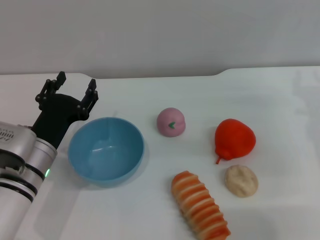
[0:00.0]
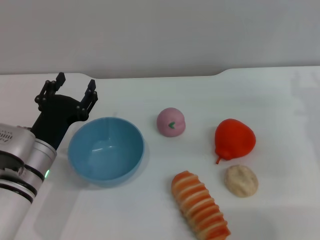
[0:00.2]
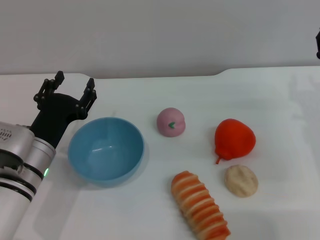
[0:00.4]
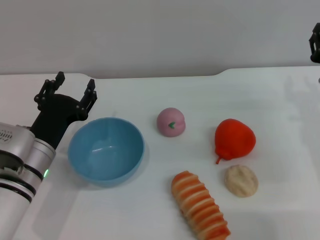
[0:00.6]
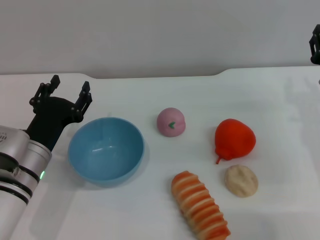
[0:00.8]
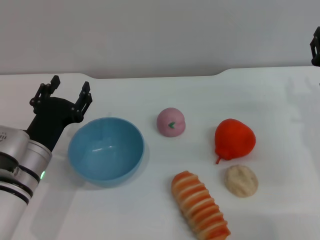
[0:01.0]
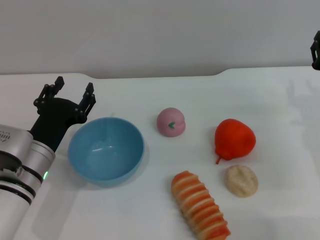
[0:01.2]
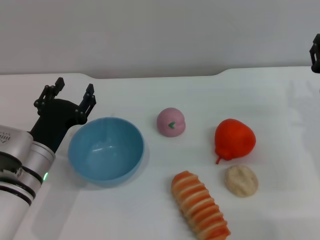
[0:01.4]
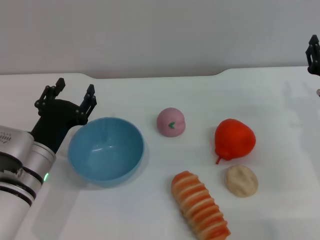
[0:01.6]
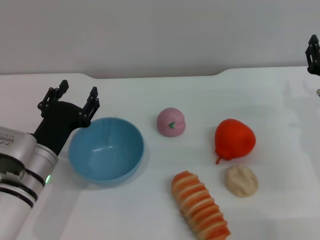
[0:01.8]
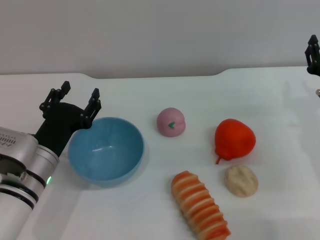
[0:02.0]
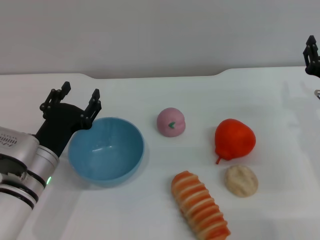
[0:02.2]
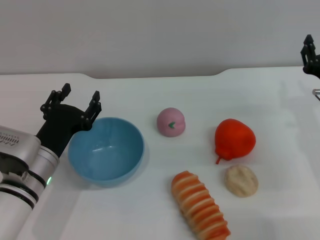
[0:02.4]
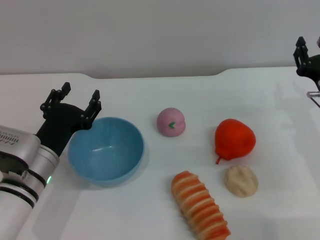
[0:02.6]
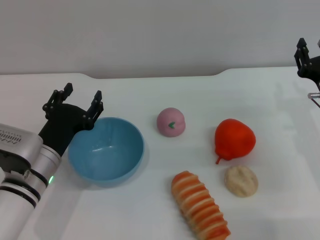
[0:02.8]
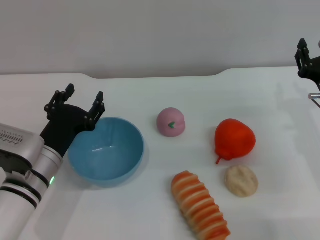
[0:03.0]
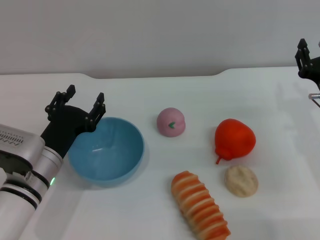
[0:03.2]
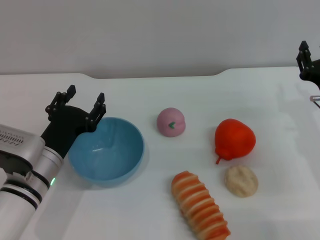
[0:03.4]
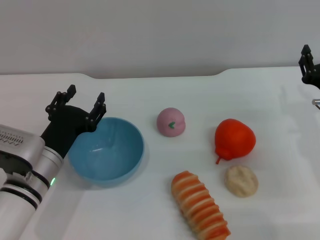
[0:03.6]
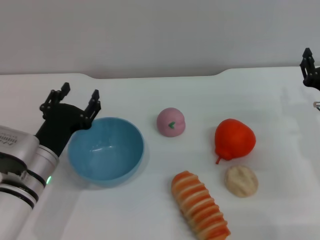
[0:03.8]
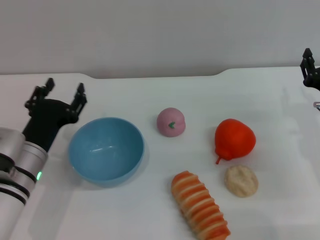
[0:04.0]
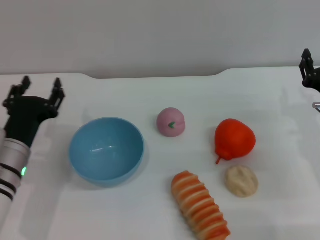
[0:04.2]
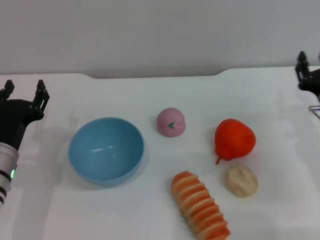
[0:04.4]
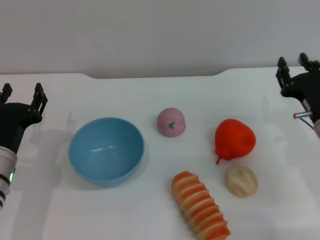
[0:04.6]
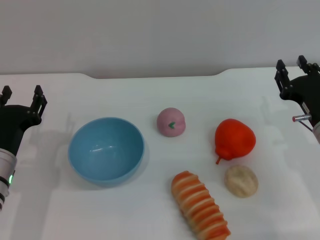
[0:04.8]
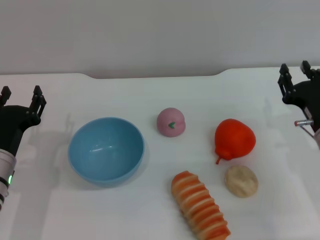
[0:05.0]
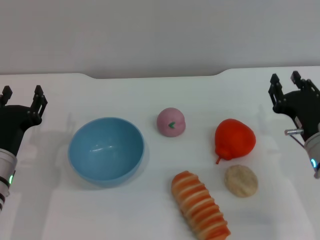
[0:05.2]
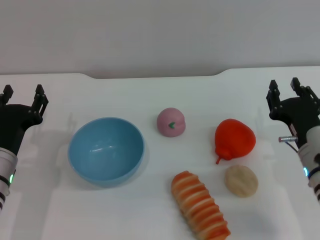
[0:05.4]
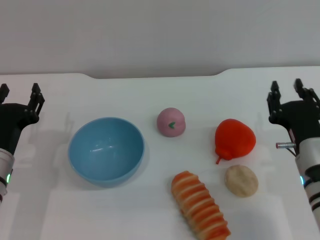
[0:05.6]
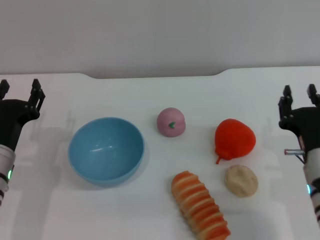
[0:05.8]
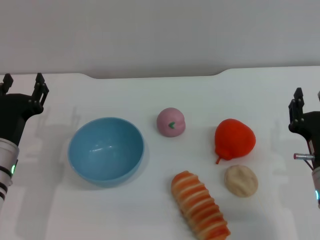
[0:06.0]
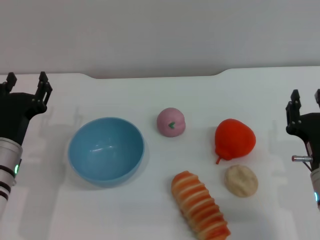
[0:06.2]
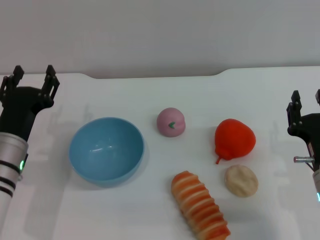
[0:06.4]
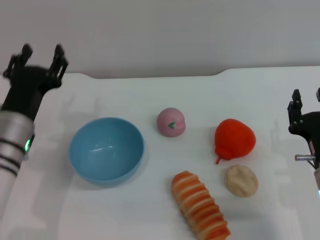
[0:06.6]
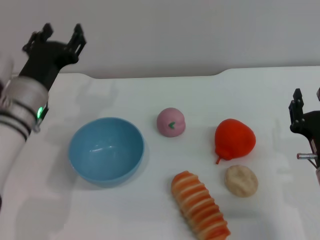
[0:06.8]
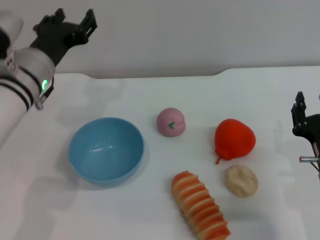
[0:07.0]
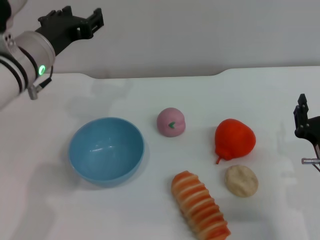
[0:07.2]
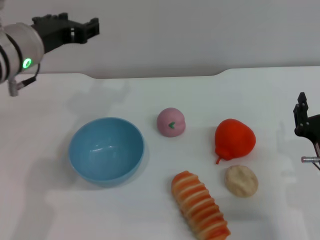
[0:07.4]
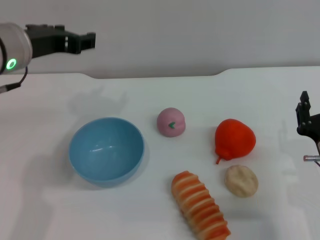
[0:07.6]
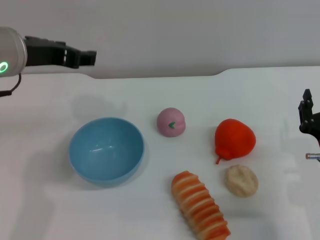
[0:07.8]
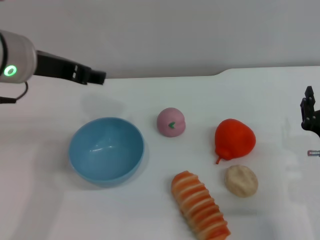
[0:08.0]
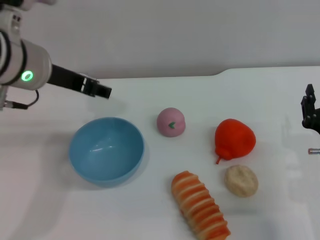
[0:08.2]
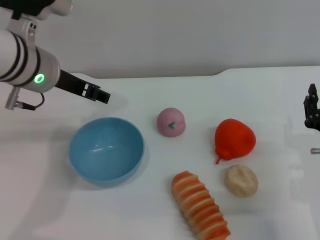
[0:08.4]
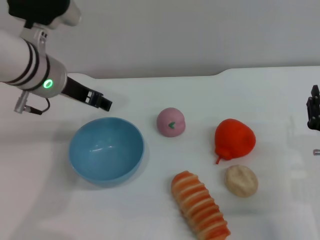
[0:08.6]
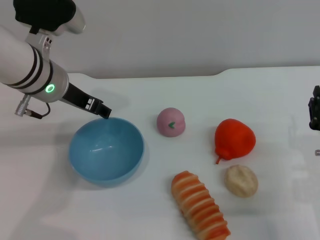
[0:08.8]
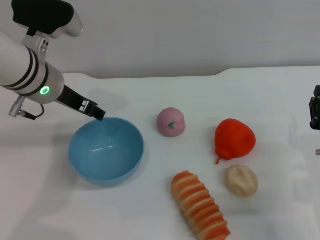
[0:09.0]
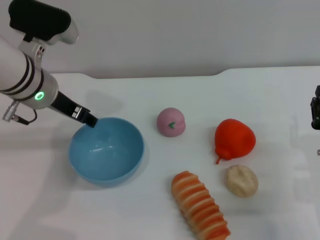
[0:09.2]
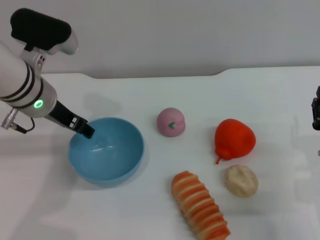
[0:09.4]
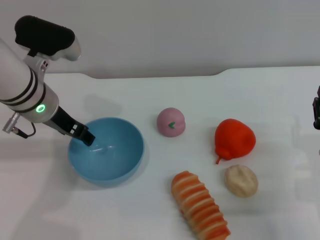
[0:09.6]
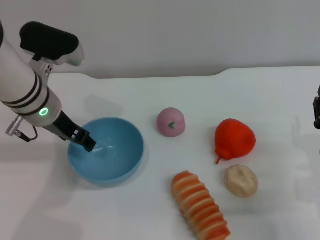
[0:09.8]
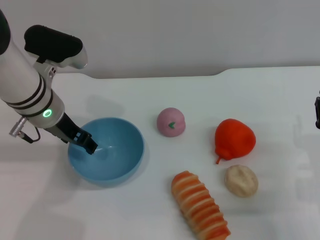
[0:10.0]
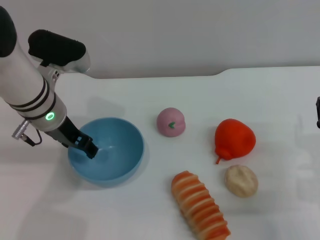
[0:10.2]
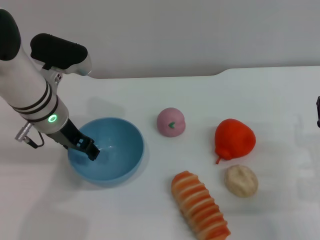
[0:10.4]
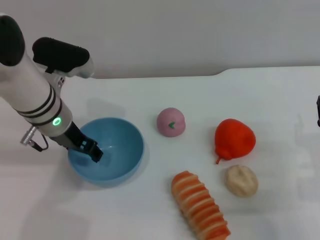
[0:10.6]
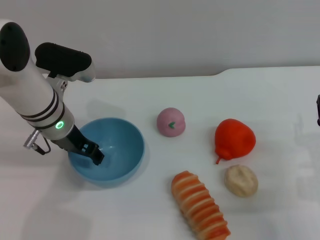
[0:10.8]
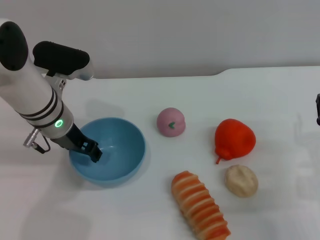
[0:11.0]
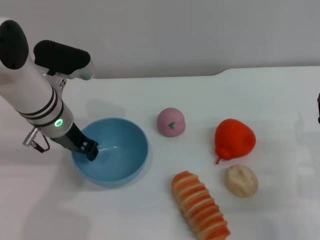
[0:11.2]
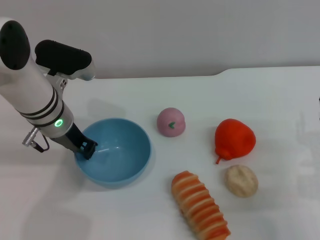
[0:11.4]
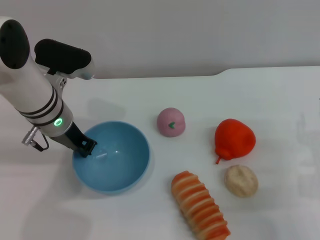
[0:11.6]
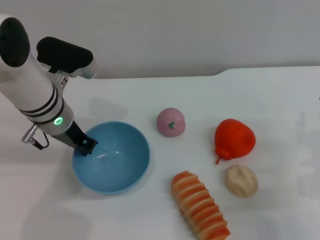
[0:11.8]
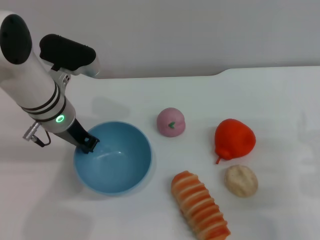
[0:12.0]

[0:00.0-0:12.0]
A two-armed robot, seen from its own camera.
Task of the whole recording: put the egg yolk pastry into the blue bowl and pour it out repeatedly.
0:00.0 to 0:01.6: The grippers stay close to where they were, moving slightly.
0:01.6 to 0:03.0: Both grippers stay about where they are.
0:03.0 to 0:04.4: The left gripper moves some 5 cm.
0:04.4 to 0:06.0: The right gripper moves backward and to the left, some 10 cm.
0:06.0 to 0:07.6: The left gripper heads upward, covering some 20 cm.
0:07.6 to 0:09.0: The left gripper moves roughly 5 cm.
0:09.0 to 0:10.4: The grippers move only a little.
0:10.4 to 0:12.0: The left gripper closes.

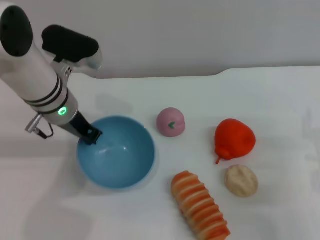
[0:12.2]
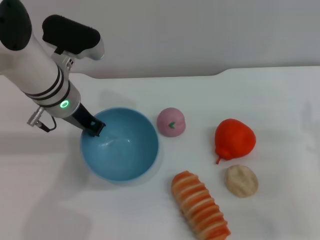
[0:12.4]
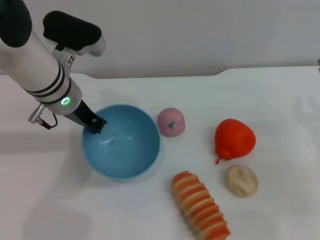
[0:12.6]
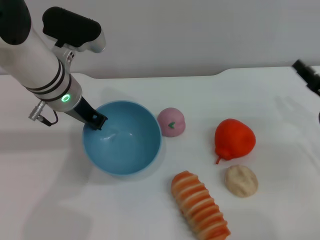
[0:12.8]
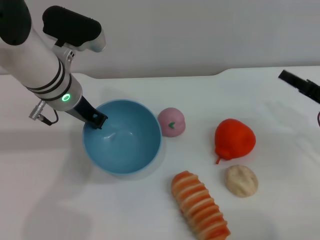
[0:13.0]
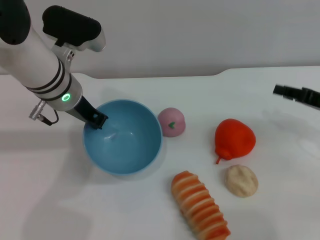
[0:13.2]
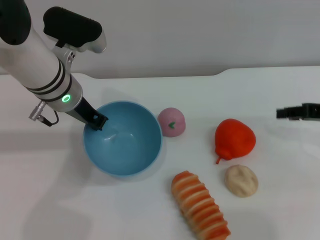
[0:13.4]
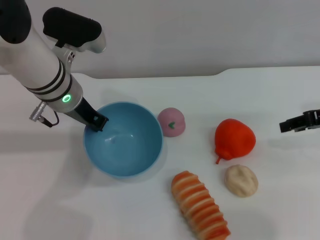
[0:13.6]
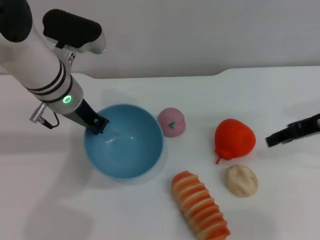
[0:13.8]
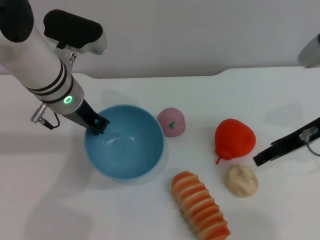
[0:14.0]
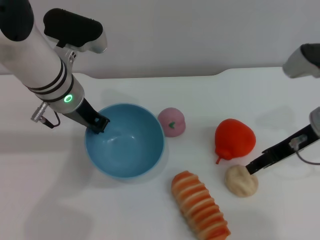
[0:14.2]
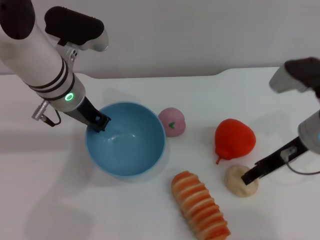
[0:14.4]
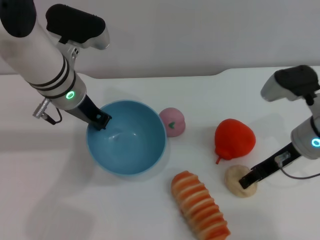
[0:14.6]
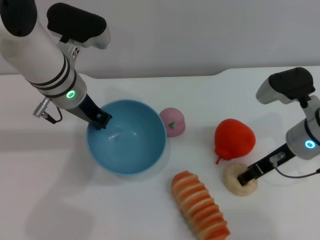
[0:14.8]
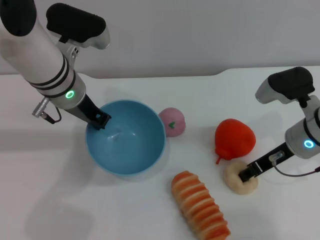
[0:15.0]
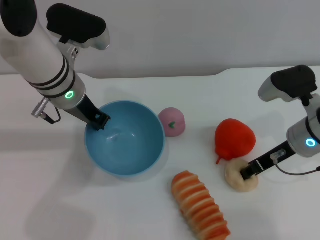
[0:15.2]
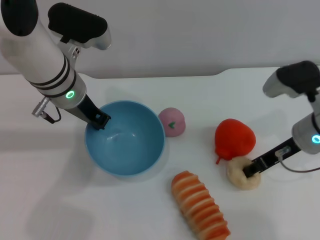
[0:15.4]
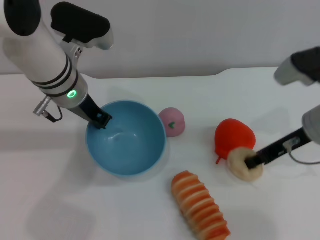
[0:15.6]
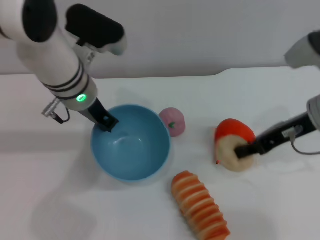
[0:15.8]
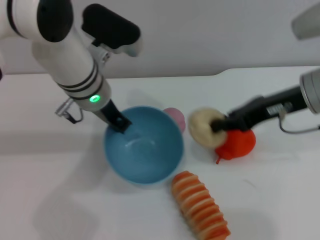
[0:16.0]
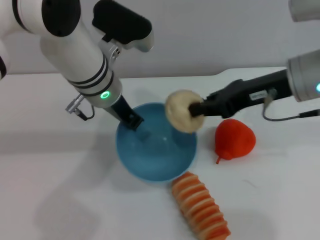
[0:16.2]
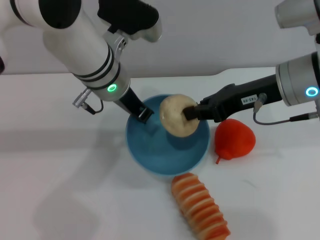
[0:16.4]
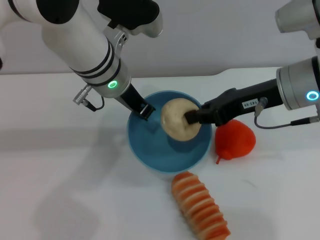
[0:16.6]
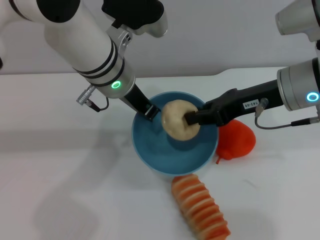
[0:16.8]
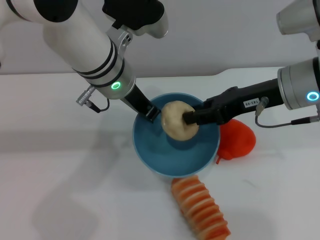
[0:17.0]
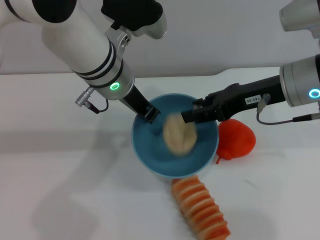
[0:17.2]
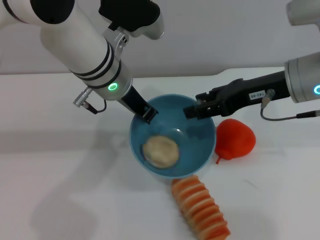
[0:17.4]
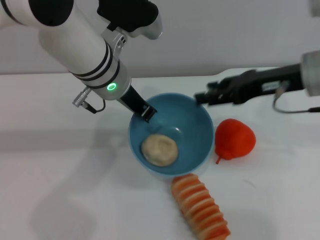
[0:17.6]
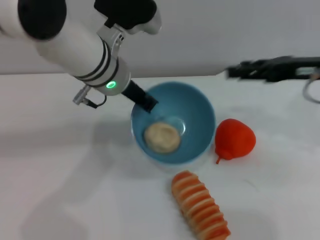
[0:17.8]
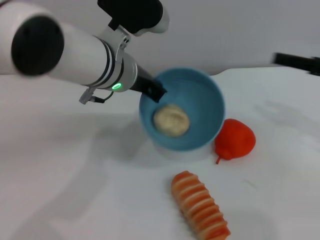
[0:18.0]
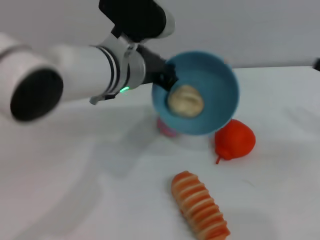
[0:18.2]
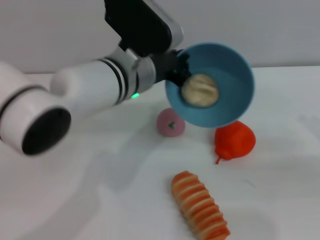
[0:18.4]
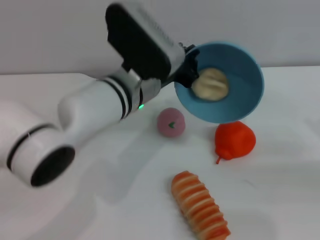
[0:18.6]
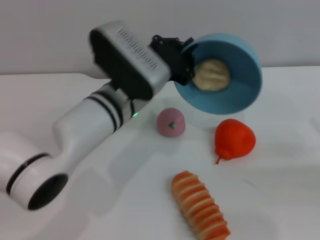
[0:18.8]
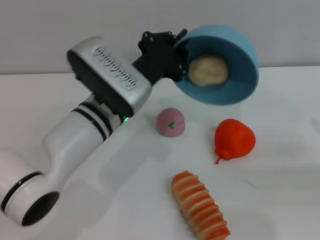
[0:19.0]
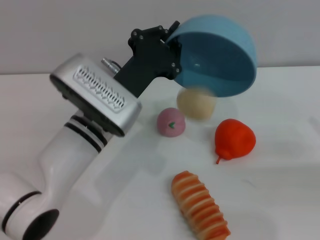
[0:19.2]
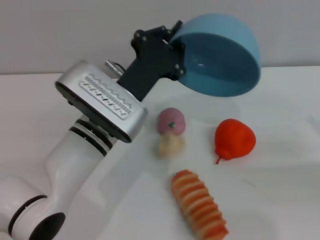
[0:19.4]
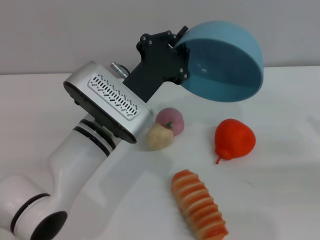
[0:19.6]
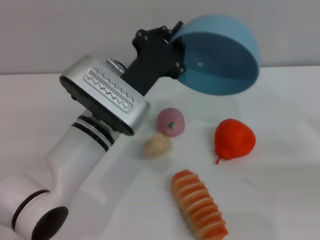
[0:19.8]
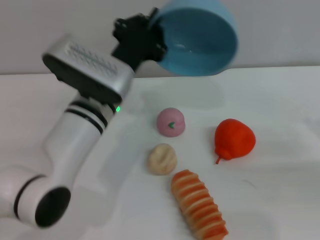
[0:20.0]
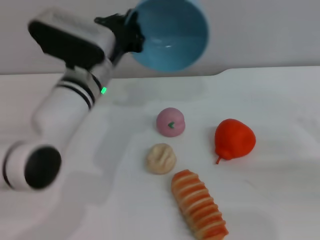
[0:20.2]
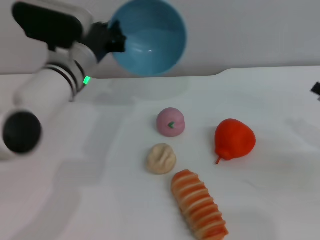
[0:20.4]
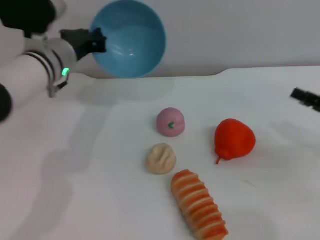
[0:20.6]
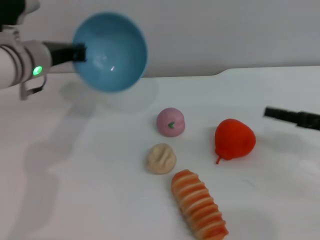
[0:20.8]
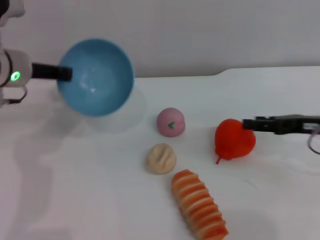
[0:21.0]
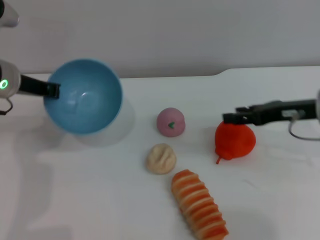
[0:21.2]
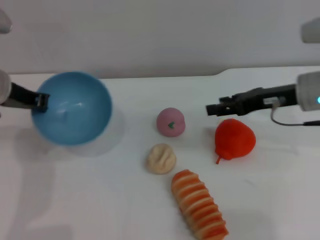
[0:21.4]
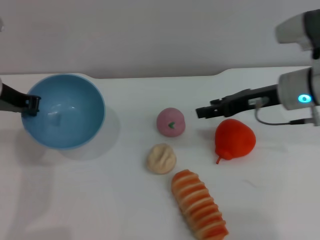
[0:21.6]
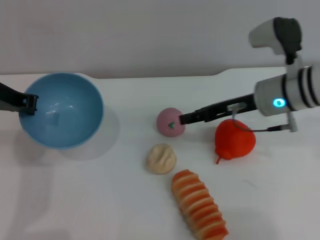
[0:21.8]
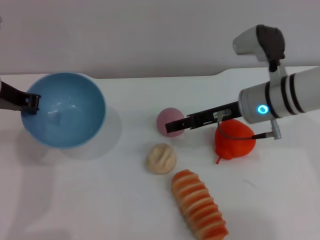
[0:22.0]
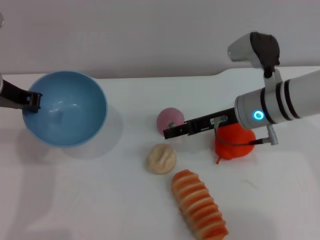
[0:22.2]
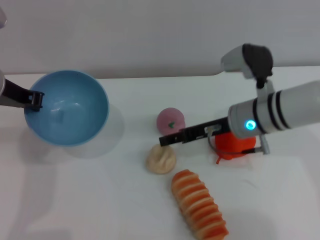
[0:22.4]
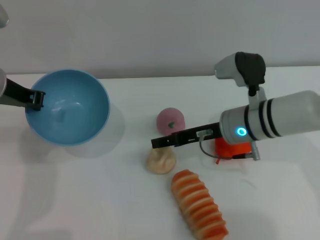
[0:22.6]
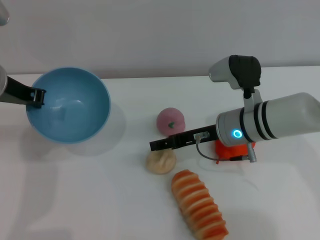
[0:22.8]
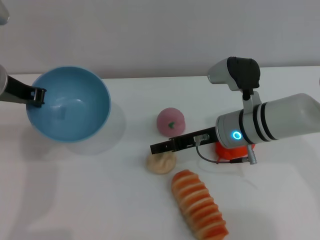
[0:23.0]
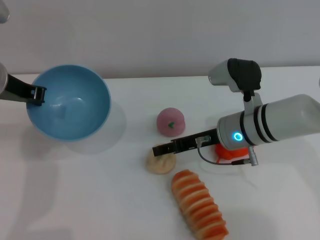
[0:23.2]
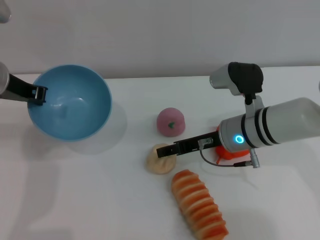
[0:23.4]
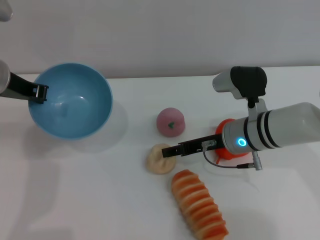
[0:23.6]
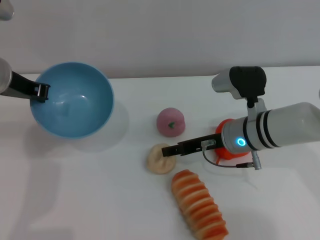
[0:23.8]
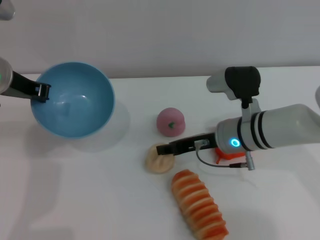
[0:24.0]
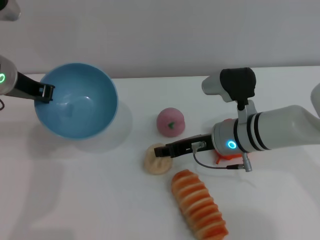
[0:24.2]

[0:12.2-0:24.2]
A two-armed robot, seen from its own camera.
Task of the whole recording: put the egg yolk pastry into the blue bowl and pour it out repeatedly.
Step, 0:13.4 to 0:15.8: Pick up the egg yolk pastry with the right gripper.
Step, 0:16.0 to 0:17.6: Place the egg yolk pastry into the bowl.
Step, 0:17.8 to 0:19.8: Pour the egg yolk pastry out of bowl.
0:12.2 to 0:13.8: The right gripper is displaced upward and forward by about 15 cm.
0:13.8 to 0:15.2: The right gripper goes approximately 10 cm downward and to the left.
0:15.2 to 0:16.6: The right gripper shifts about 10 cm upward, and closes. The left gripper heads to the right, covering approximately 5 cm.
0:16.6 to 0:18.2: The right gripper travels to the right by about 20 cm, and opens its fingers.
0:18.2 to 0:19.8: The right gripper changes place by some 5 cm, while the left gripper is displaced downward by some 10 cm.
0:19.8 to 0:21.2: Both grippers move to the left and forward, about 15 cm.
0:21.2 to 0:22.6: The right gripper is displaced to the left by approximately 15 cm.
0:22.6 to 0:24.2: The right gripper closes its fingers.
